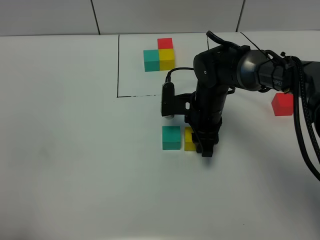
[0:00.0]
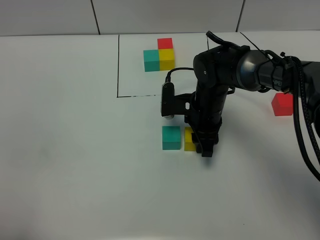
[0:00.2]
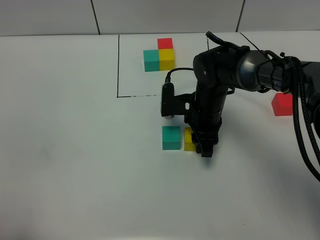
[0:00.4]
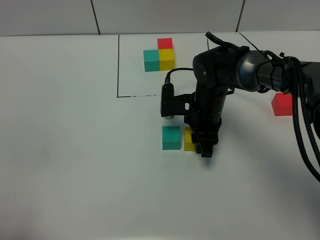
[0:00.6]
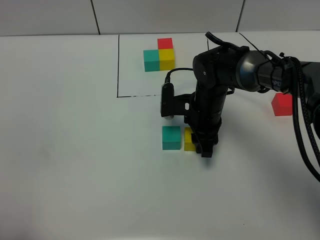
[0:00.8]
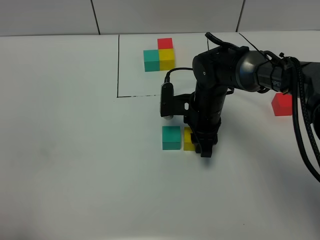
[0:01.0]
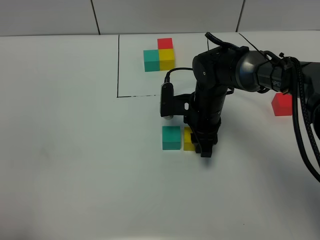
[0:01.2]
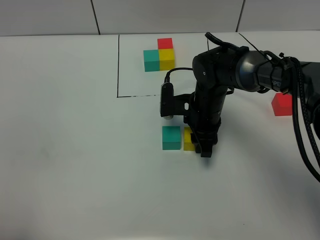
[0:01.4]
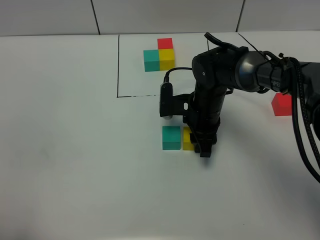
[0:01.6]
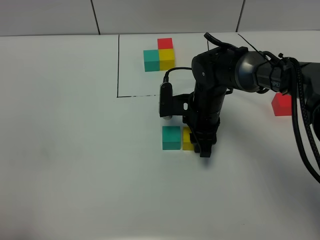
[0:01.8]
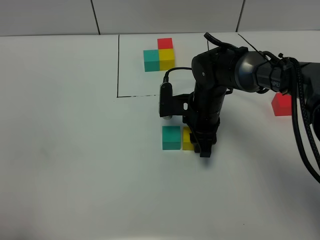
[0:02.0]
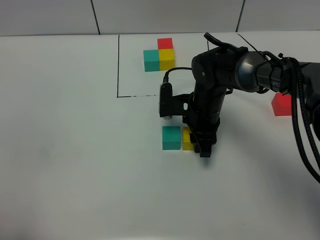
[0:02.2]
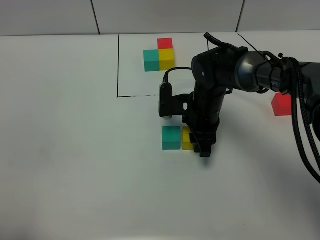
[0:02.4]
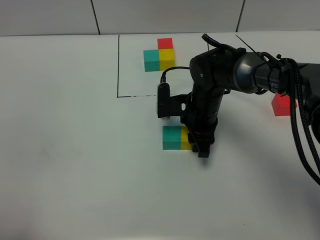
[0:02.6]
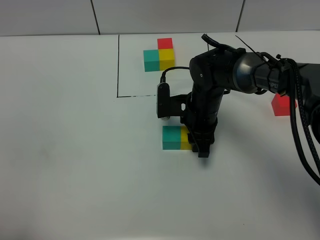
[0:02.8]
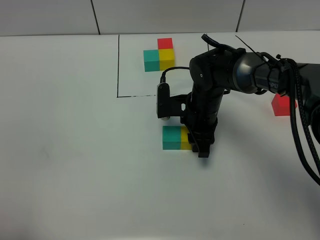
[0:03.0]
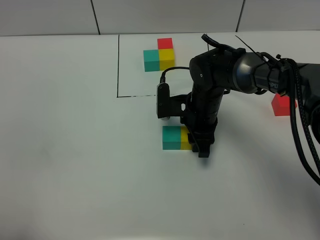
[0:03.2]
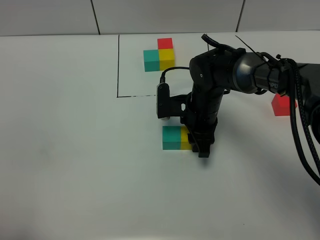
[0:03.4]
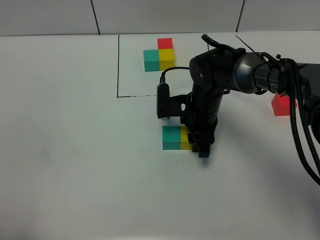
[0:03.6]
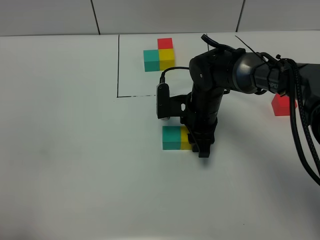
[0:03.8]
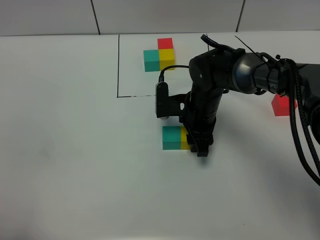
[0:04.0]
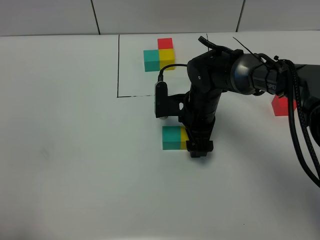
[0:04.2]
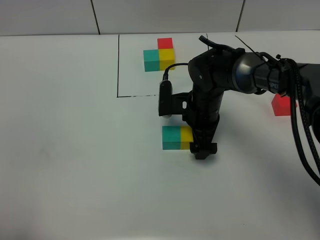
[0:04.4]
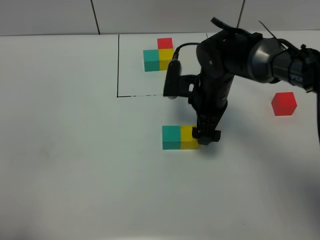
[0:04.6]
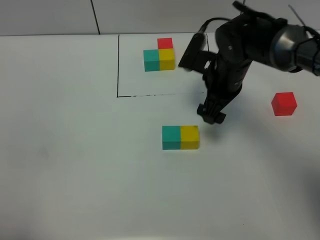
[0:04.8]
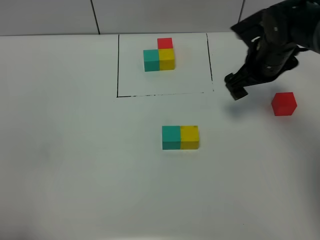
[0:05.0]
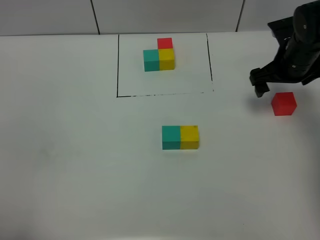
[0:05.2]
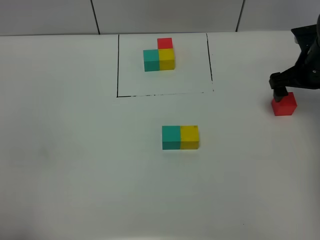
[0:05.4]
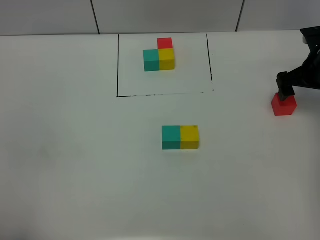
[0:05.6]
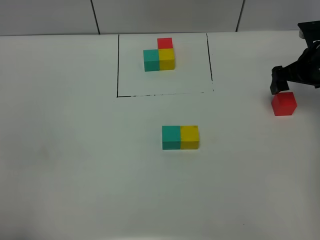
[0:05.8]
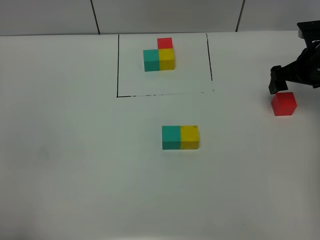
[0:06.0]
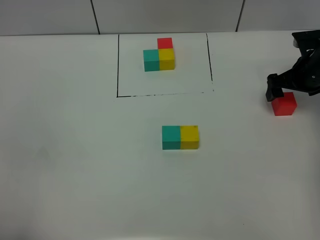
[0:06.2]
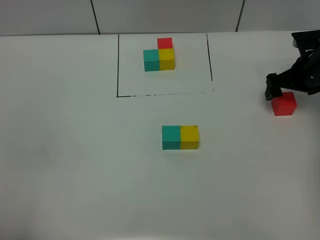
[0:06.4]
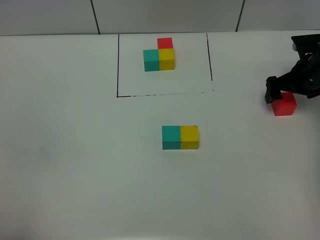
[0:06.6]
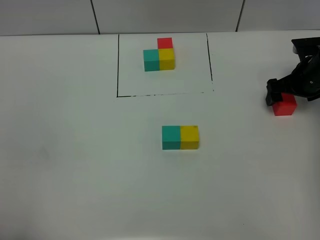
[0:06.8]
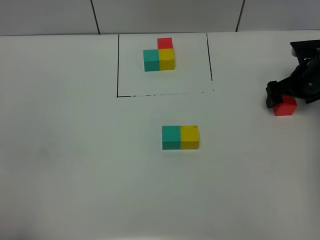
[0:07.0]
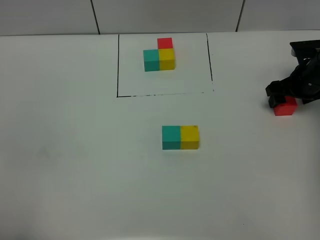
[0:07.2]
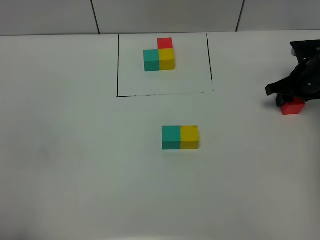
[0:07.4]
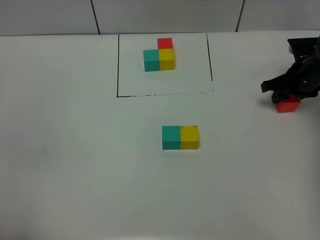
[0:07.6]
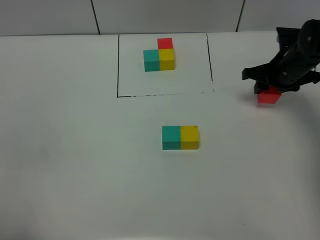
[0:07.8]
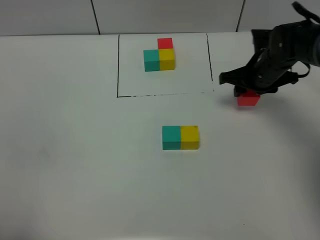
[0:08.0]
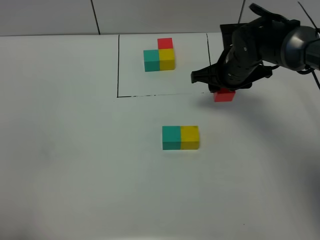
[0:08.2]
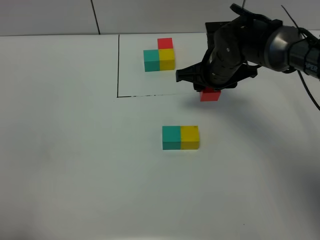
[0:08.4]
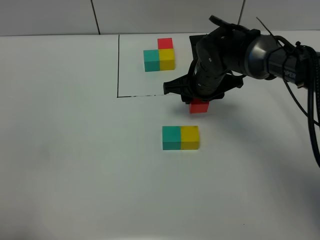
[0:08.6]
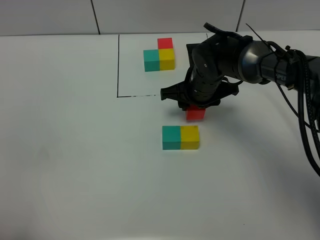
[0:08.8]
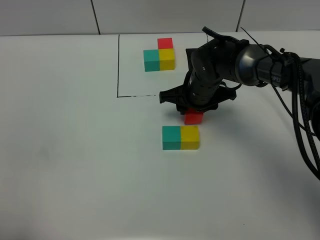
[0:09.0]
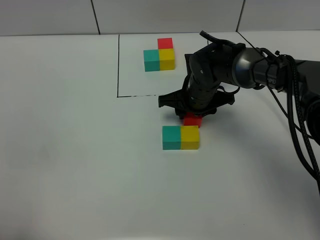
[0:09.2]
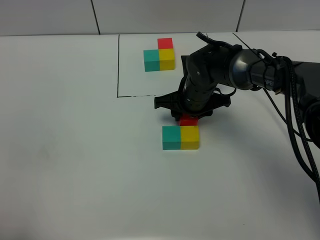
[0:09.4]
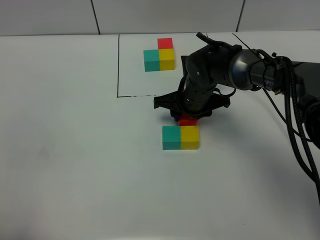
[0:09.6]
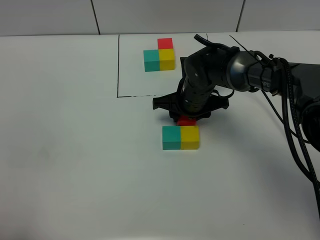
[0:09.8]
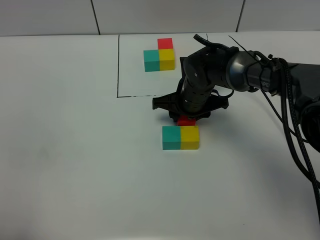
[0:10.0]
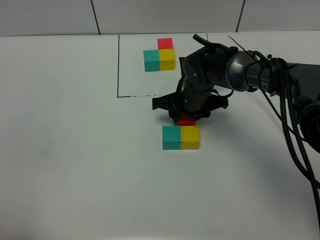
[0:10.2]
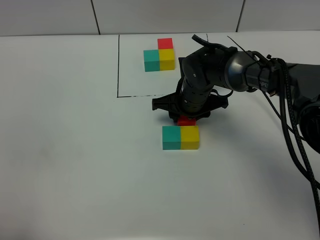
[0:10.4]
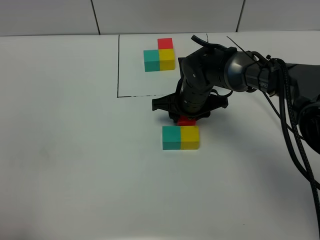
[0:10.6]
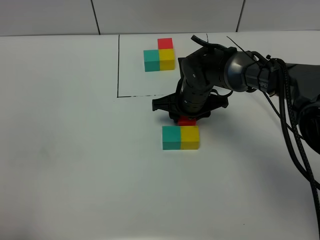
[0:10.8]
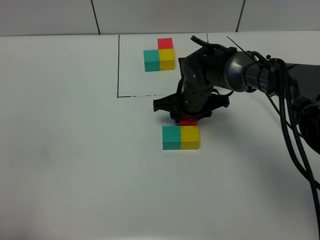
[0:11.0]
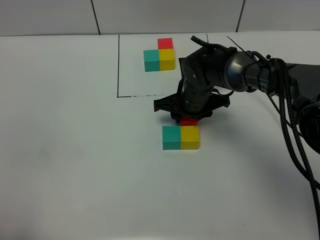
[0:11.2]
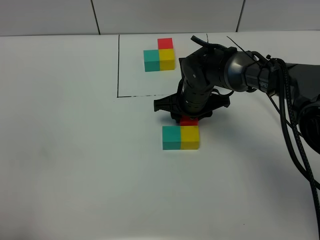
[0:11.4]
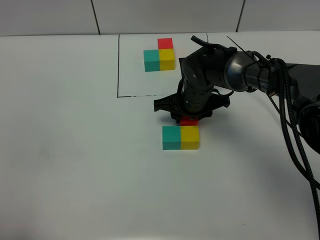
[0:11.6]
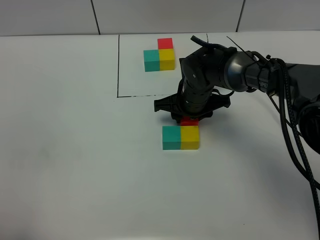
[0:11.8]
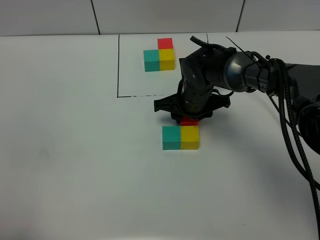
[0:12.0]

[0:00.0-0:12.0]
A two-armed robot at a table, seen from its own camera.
Task of the whole recording: According to the building block template in front, assemble the scattered blocks together.
Step, 0:00.0 to 0:04.4: Put the yellow build block on the right of the green build block.
0:00.0 to 0:03.0: Neither gripper changes place.
0:03.0 to 0:04.4: The right gripper opens up.
0:04.4 to 0:06.0: The right gripper travels to the right by about 25 cm.
0:06.0 to 0:07.6: The right gripper closes its fingers.
0:07.6 to 0:09.0: The right gripper is displaced to the left by some 20 cm.
0:09.0 to 0:10.4: The grippers move only a little.
0:10.4 to 0:12.0: Both grippers stay put.

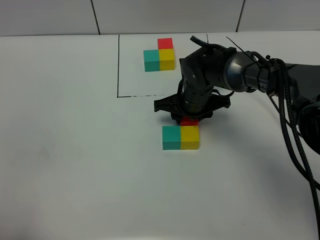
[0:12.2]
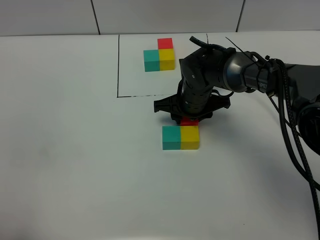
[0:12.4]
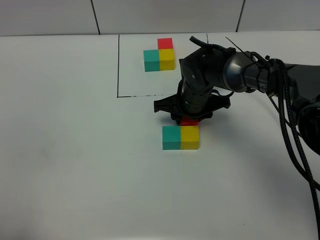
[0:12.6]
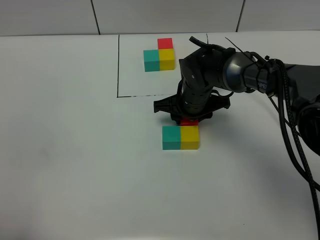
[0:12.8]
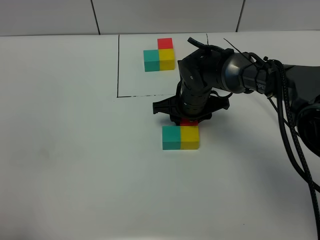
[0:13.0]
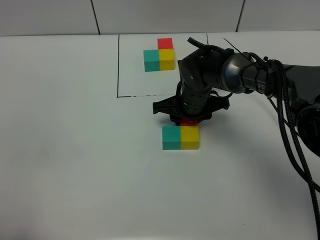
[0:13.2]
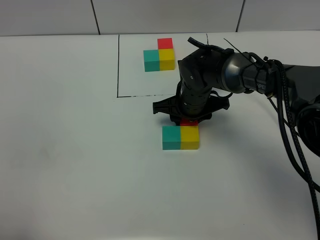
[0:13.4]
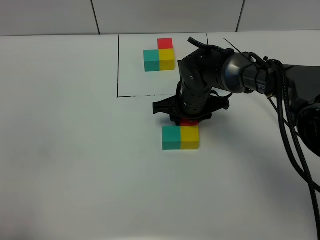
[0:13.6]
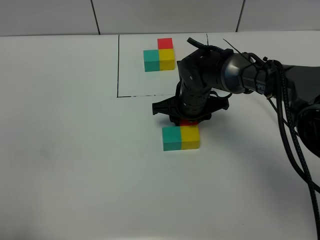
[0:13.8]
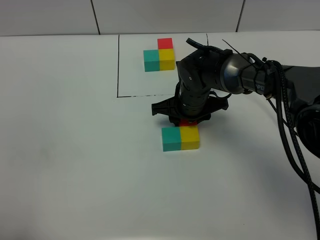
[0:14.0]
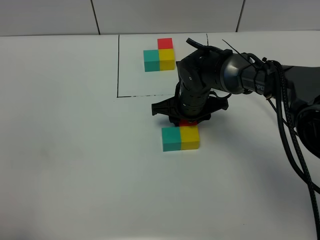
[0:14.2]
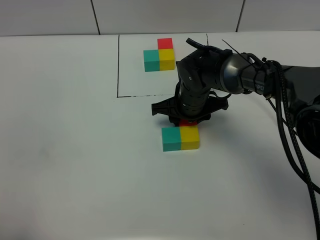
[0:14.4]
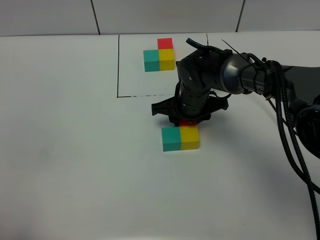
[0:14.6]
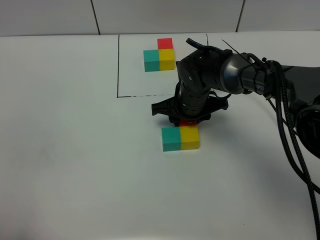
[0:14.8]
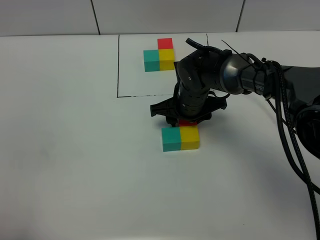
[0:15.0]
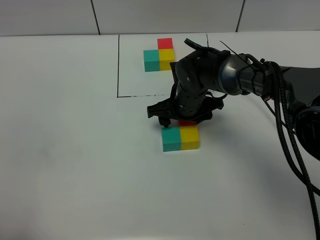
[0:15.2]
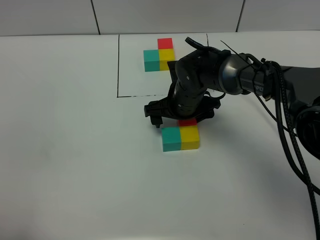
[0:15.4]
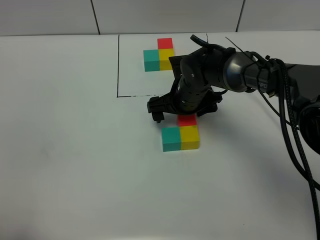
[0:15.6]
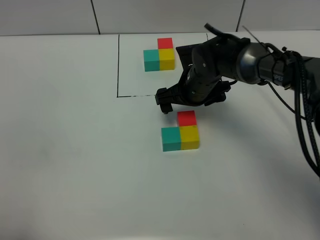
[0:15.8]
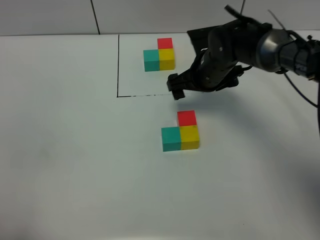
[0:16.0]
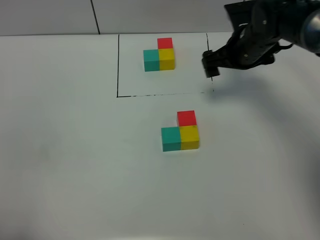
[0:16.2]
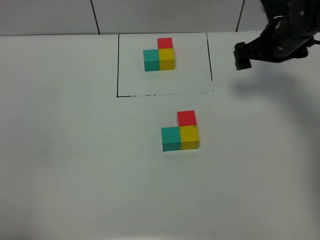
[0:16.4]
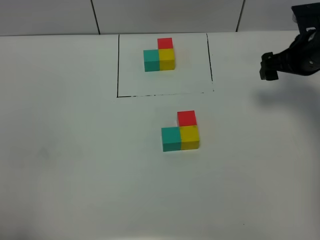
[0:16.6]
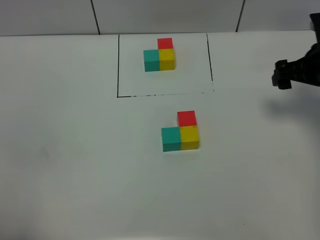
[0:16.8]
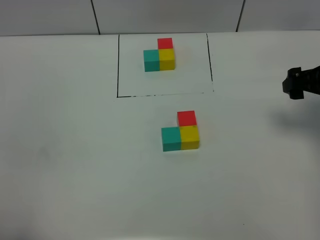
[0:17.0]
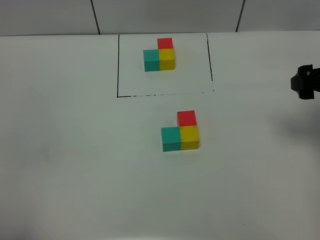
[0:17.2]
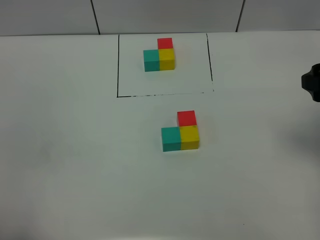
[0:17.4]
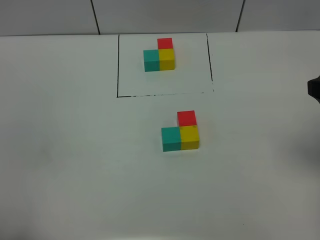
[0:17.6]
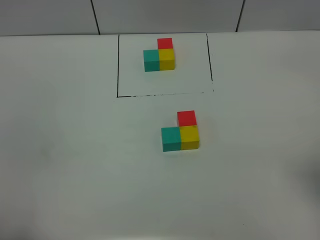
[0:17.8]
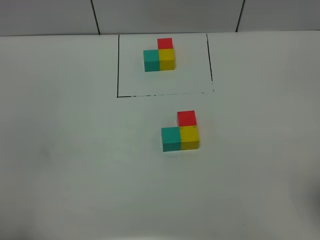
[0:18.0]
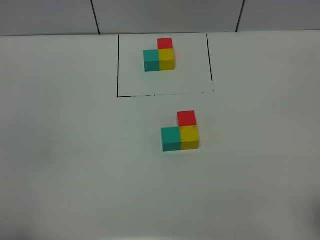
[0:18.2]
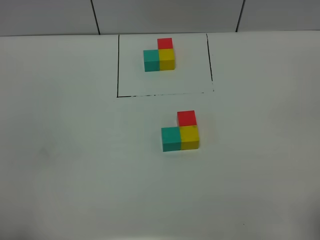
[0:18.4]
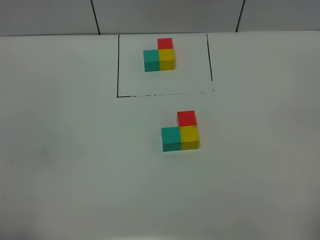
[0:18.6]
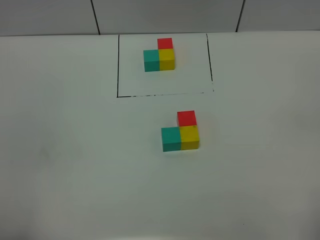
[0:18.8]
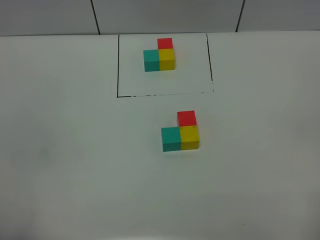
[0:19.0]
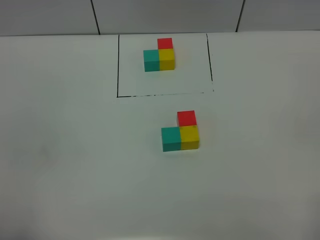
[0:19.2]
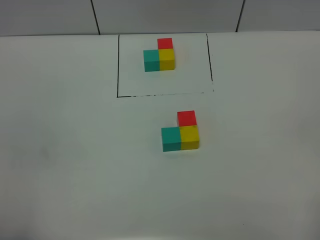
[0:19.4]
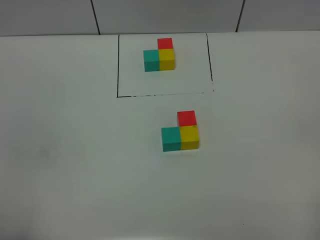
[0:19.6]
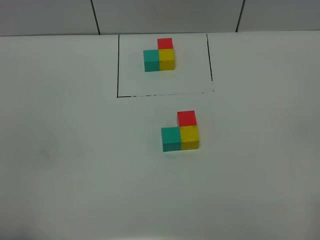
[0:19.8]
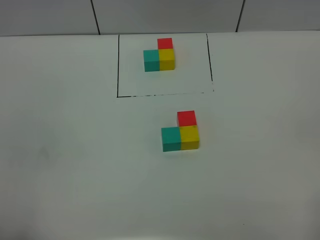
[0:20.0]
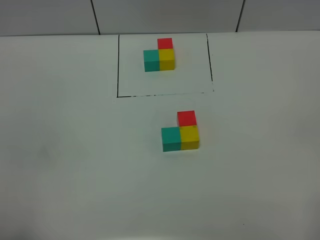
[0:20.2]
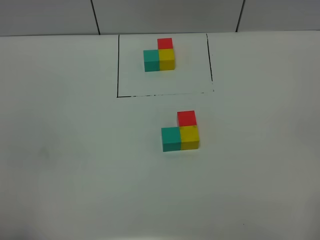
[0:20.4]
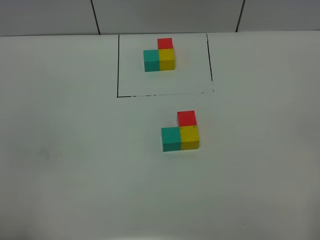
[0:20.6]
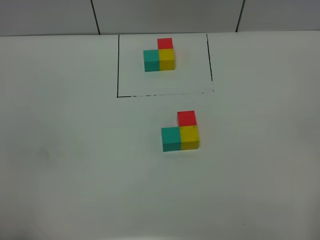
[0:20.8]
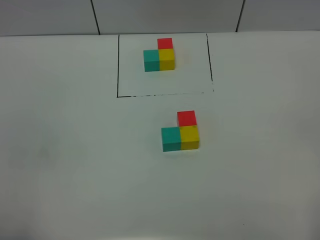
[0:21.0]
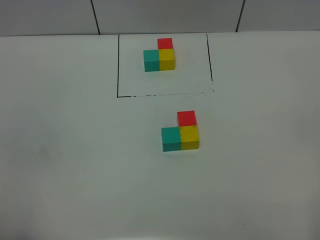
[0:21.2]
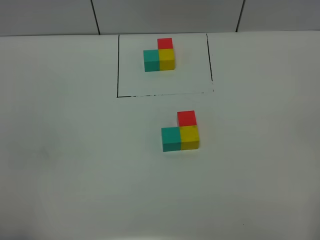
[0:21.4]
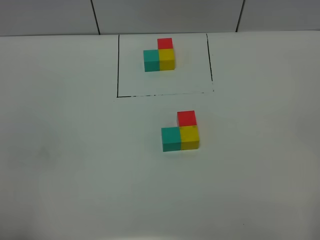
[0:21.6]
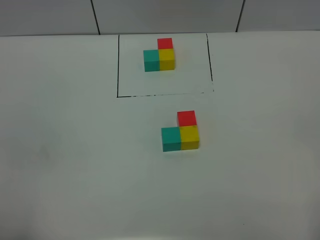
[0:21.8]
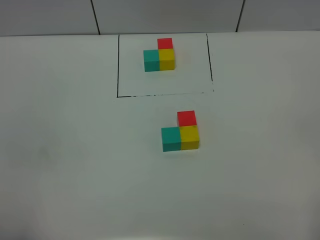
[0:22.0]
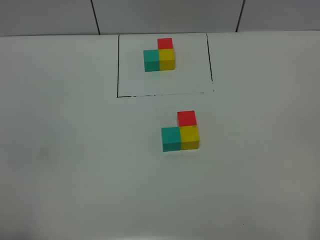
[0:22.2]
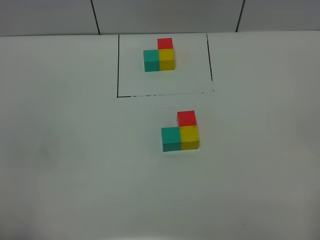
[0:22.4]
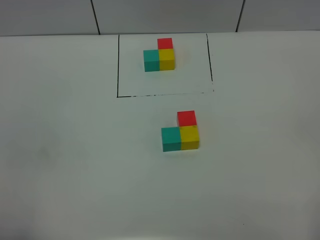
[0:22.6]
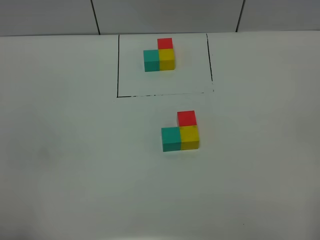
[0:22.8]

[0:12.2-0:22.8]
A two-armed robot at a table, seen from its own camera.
Task of the whole recording: According to the building block template in front, assemble the scattered blocks together.
Step, 0:12.2 to 0:15.2: Put the red build block on the front of the yellow build block.
0:12.2 to 0:13.8: Both grippers stay put.
0:13.8 to 0:15.2: The right gripper opens its fingers.
0:15.2 to 0:16.8: The right gripper heads to the right and upward, covering roughly 25 cm, and opens its fingers.
0:16.8 to 0:18.2: The right gripper is displaced backward by some 30 cm.
0:19.8 to 0:22.8: Both grippers stay put.
